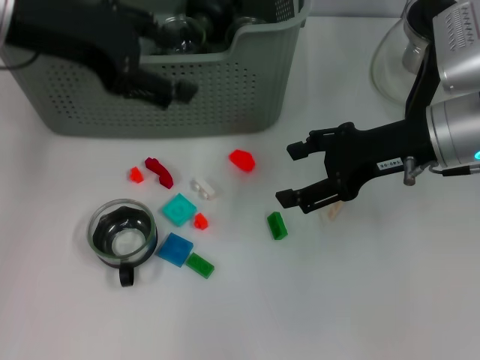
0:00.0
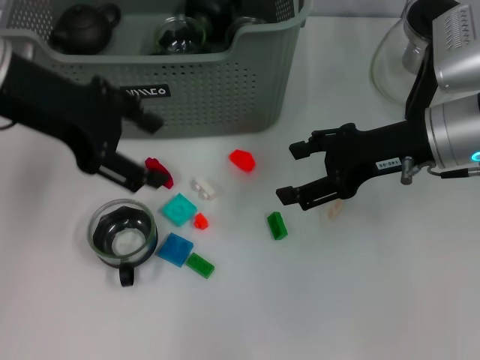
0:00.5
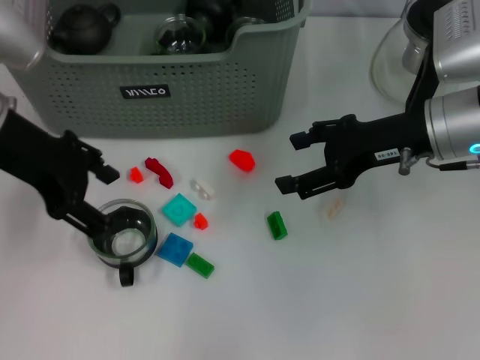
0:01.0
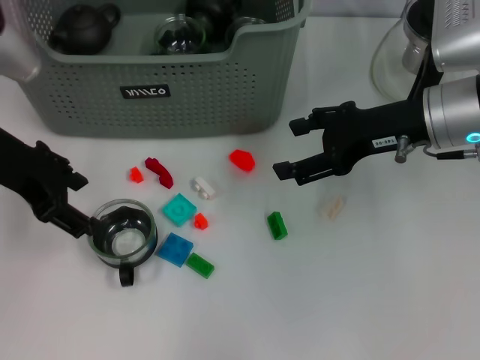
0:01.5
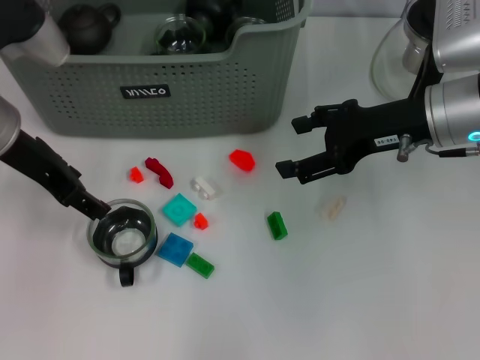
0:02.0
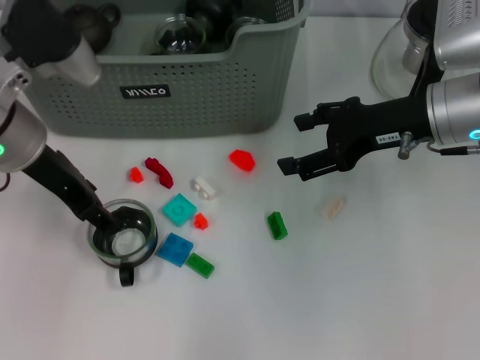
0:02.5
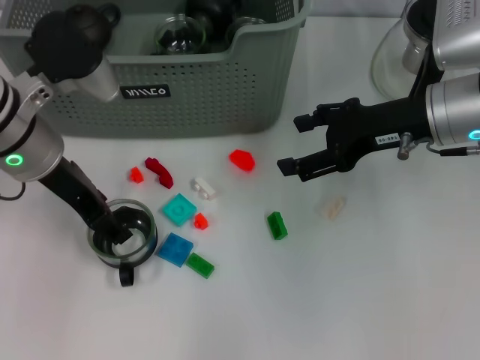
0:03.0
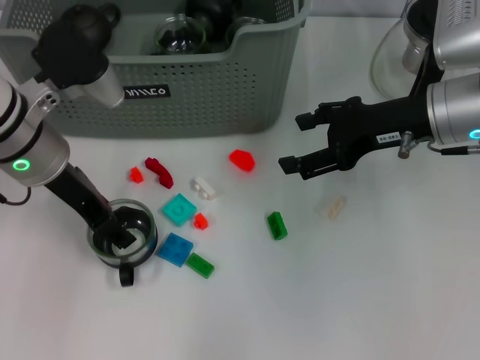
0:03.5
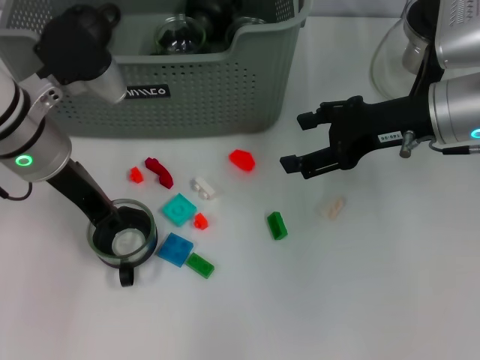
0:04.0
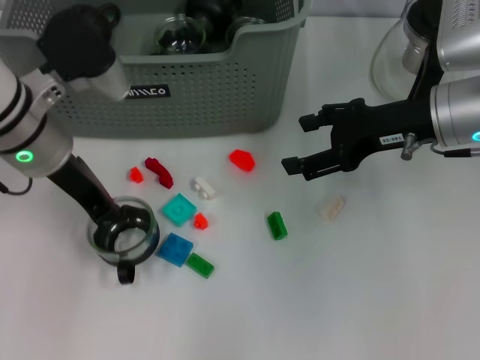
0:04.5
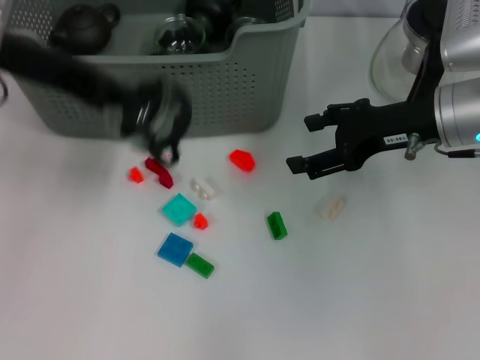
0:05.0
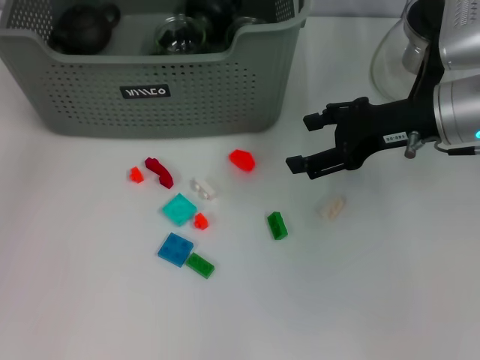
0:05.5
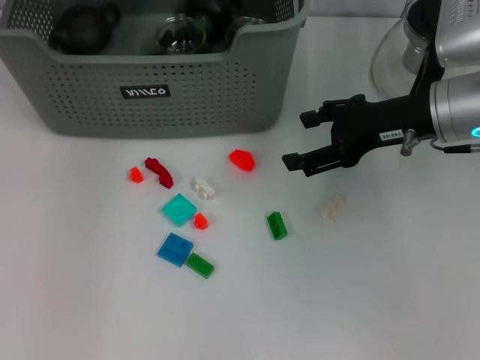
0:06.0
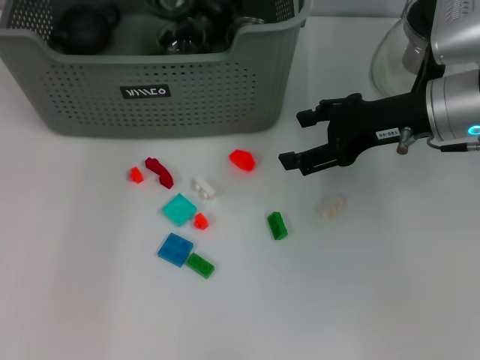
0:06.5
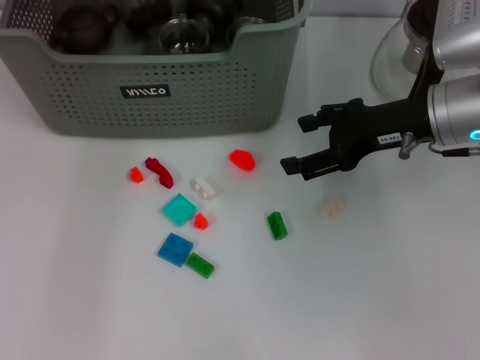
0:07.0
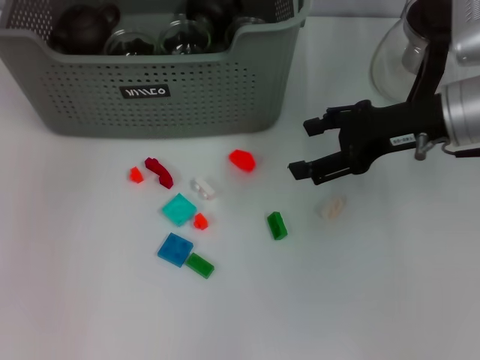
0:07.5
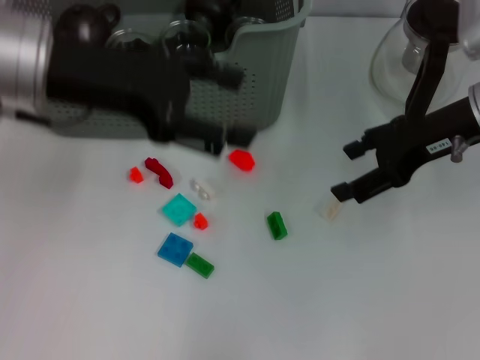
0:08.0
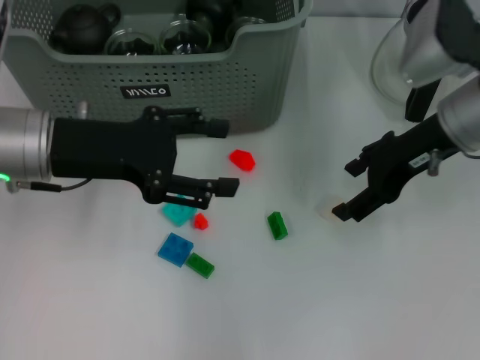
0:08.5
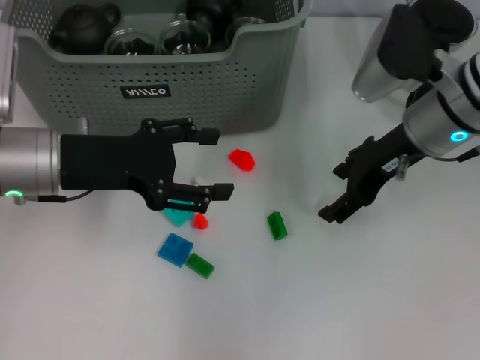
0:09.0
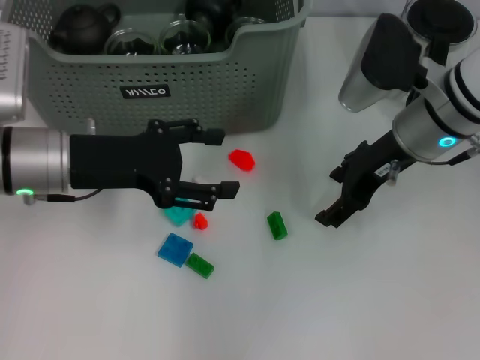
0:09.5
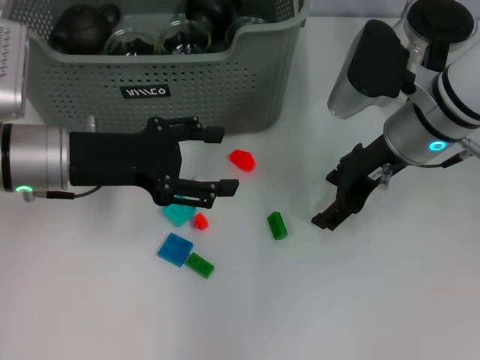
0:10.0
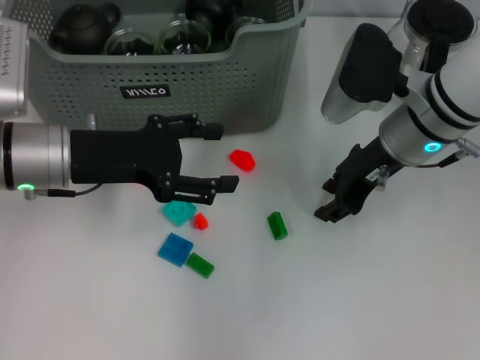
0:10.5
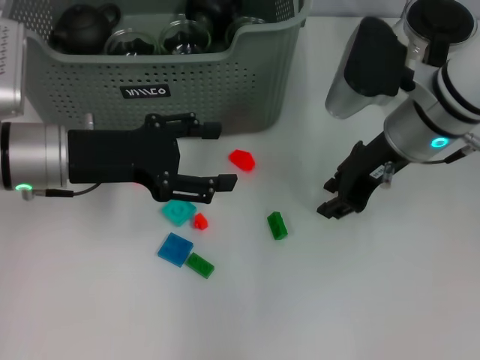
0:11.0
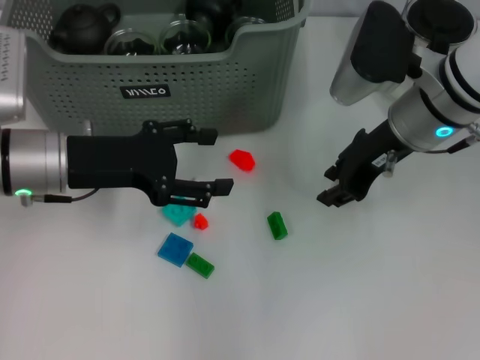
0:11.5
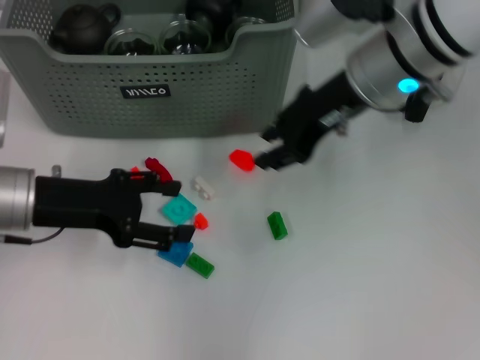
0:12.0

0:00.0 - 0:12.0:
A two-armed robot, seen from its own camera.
Task of the whole recording: pick up the teacup on the table and place it into the storage bin, pick up the block on the table and place it into the storage bin.
Step, 0:00.0 - 0:04.0: Grasp the cup with left gripper.
Step, 0:04.5 - 0:07.0: Place the cup in the storage box with left gripper.
Step, 0:07.5 - 0:10.5: Grasp the white block with right gripper.
0:00.0 - 0:02.0: The left gripper is displaced downward by approximately 10 cm.
0:02.0 - 0:04.0: The left gripper closes.
0:04.0 - 0:06.0: The left gripper travels forward and upward by approximately 20 cm, and closes up.
0:06.0 - 0:08.0: The left gripper shifts approximately 15 cm backward, and opens.
0:08.0 - 0:10.0: The right gripper travels to the left by about 5 cm, while the left gripper travels downward by some 10 cm.
0:10.0 - 0:12.0: The right gripper moves upward, approximately 5 cm, and closes up.

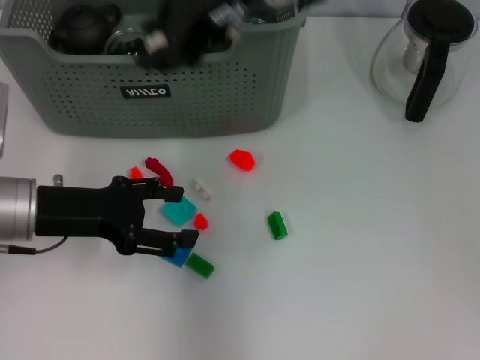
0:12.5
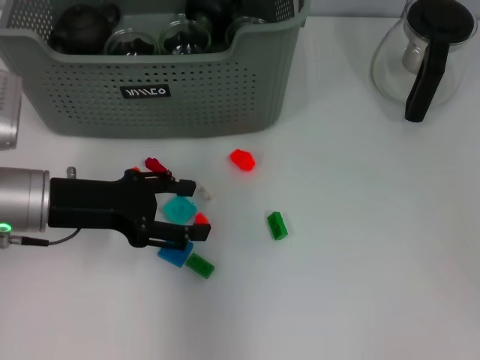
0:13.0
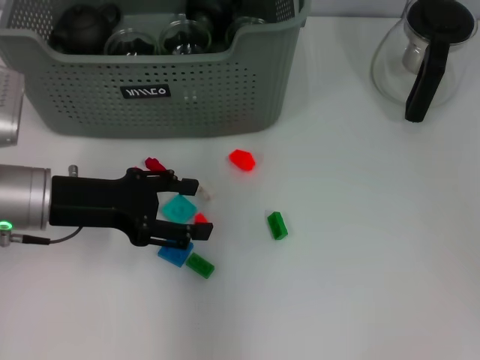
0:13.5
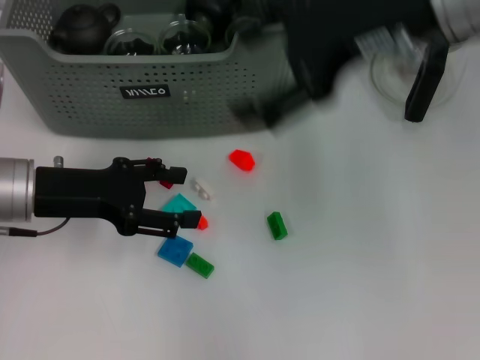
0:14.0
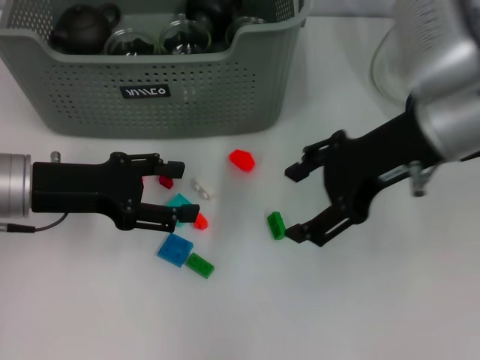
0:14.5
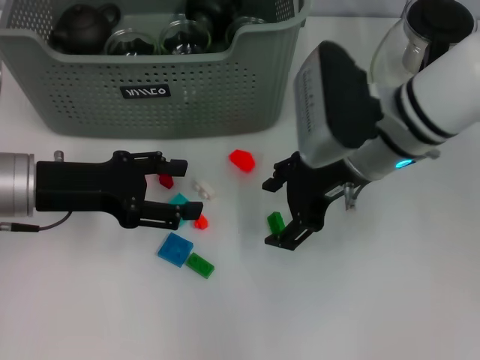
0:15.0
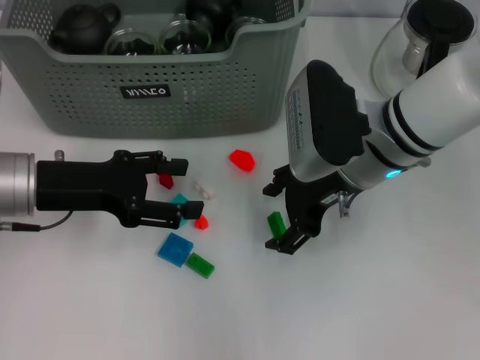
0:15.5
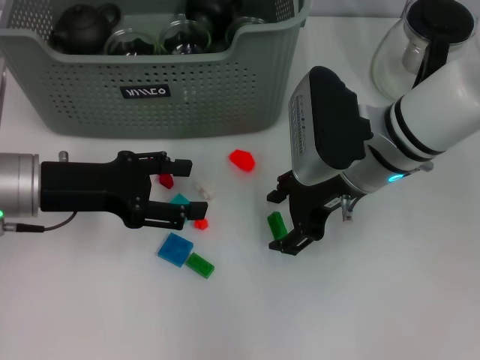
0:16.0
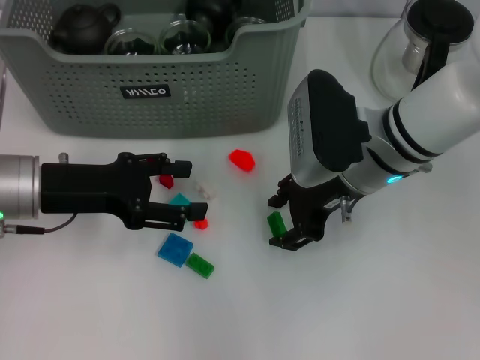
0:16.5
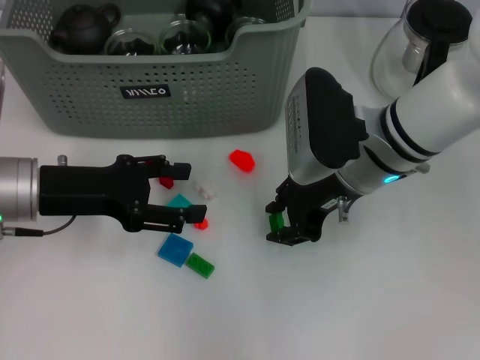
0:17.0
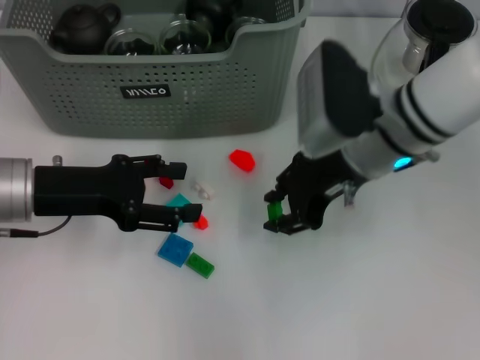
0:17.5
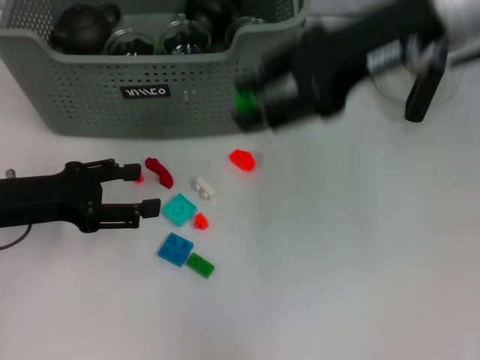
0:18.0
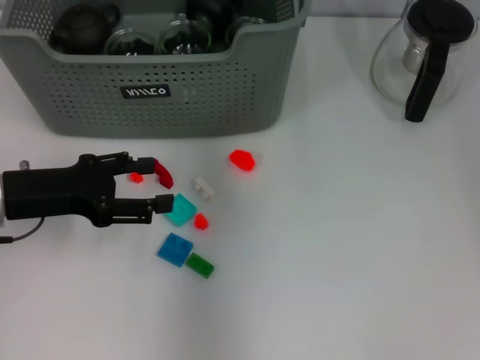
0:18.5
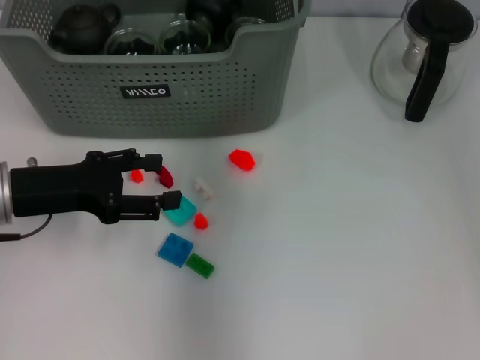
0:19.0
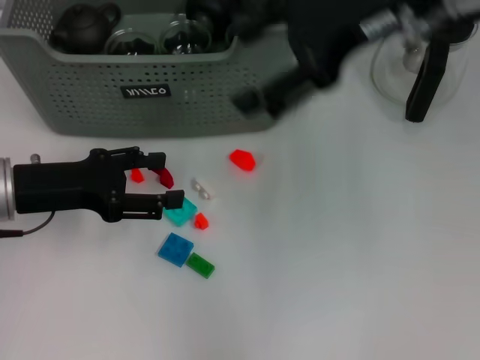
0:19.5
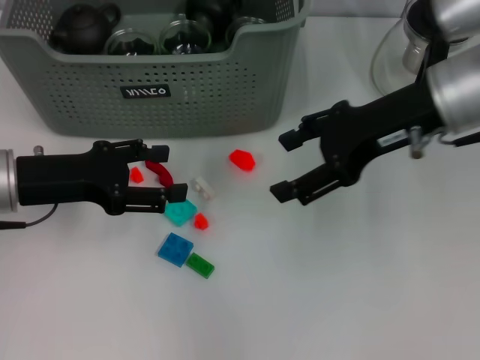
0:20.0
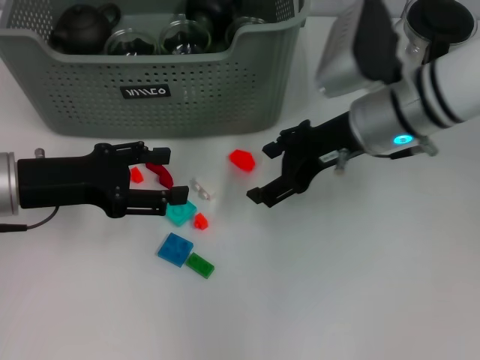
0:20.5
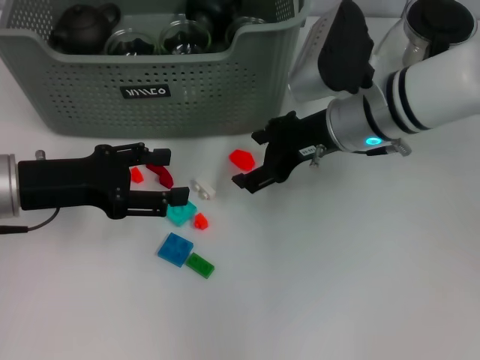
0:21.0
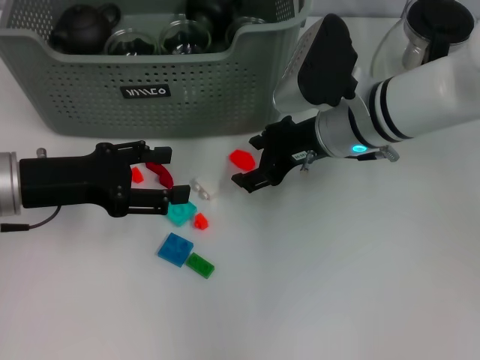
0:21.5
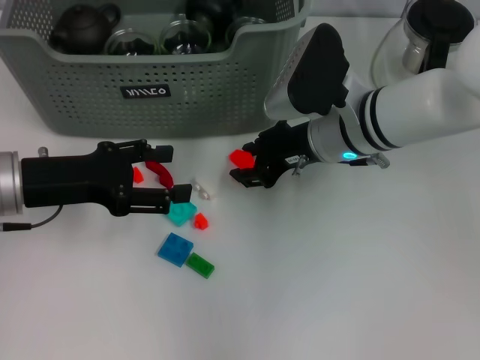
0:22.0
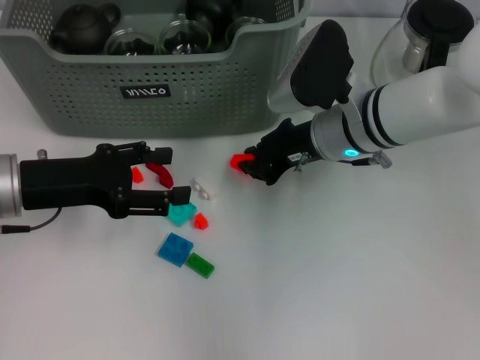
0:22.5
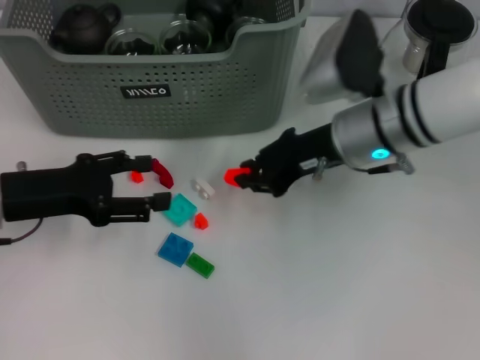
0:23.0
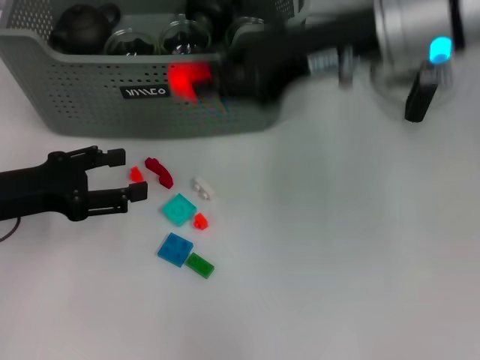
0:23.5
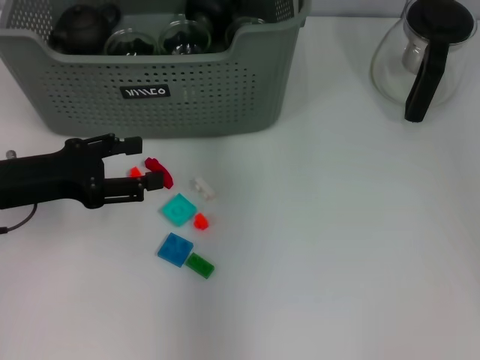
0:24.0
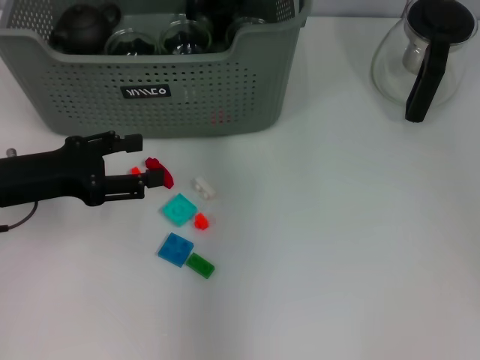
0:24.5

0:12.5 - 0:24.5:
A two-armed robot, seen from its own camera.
Task of the whole recording: pick up the teacup on the table and place it into the storage bin, pick up the block on the table and place it into the storage bin.
Step, 0:14.0 - 0:17.0: Grasp the green block with right gripper.
Step, 0:17.5 - 0:19.0: Place the green block in the storage box with right gripper.
Step, 0:19.5 - 0:22.5: Grasp the orange block with right gripper.
Step, 0:23.0 - 0:24.5: Place the orange block in the storage box with right gripper.
0:12.5 - 0:14.5: The right gripper heads to the right, downward and backward, covering roughly 15 cm, and opens up.
0:14.5 - 0:16.5: The right gripper shifts some 10 cm downward.
0:16.5 - 0:18.5: The right gripper travels upward and forward by roughly 25 cm.
0:18.5 - 0:20.5: The right gripper moves downward, approximately 20 cm, and opens its fingers.
0:20.5 - 0:22.5: The right gripper changes place by approximately 5 cm, and closes its fingers.
0:22.5 - 0:24.5: The right gripper goes about 15 cm upward and forward.

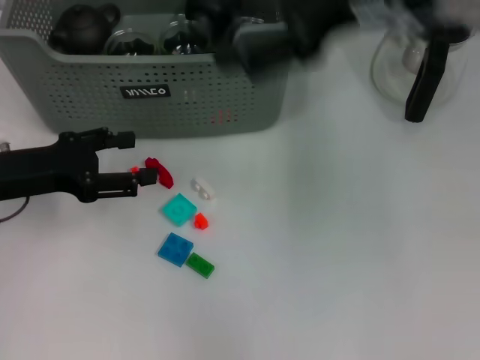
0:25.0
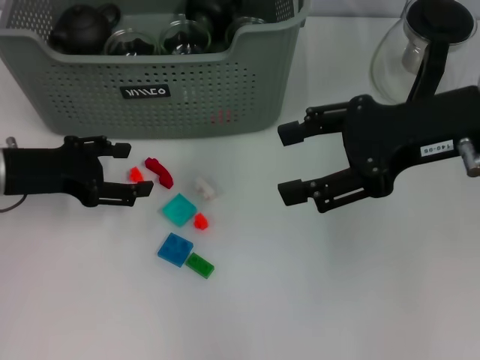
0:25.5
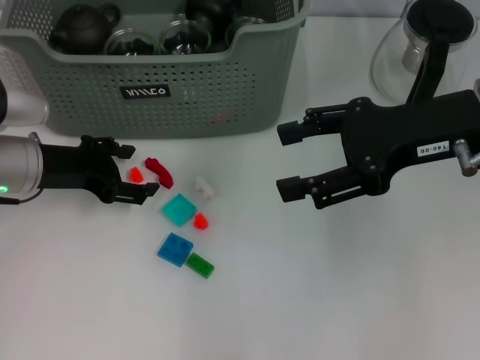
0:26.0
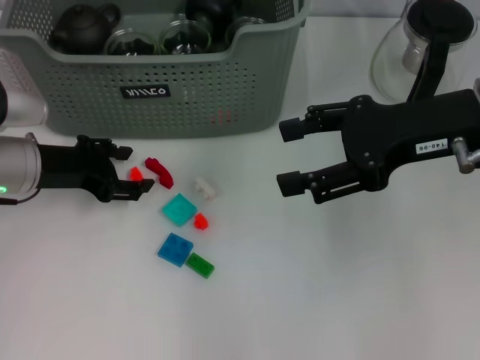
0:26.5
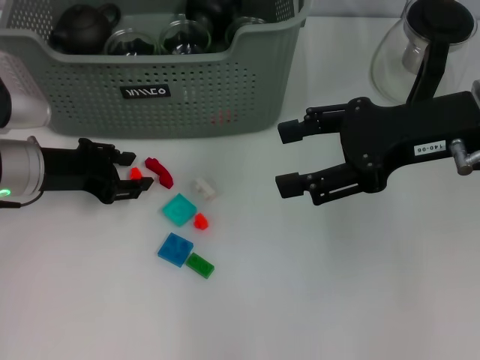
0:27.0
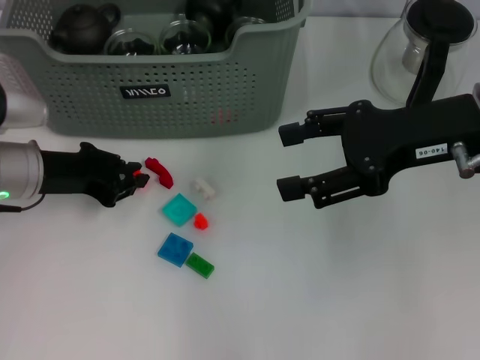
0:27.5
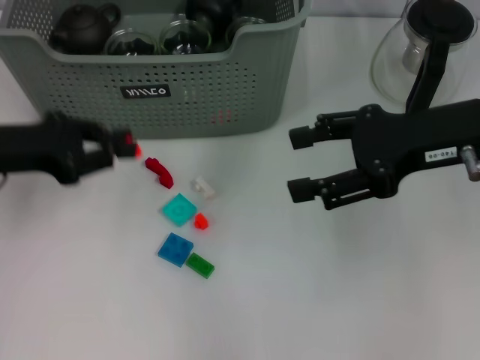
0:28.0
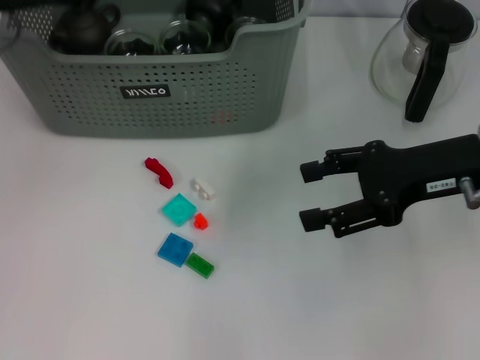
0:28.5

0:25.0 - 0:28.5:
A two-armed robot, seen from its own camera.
Task of the whole recording: pick up the teacup on the table and place it into the storage bin, pick up the block on the table and place it into the storage bin.
Step, 0:25.0 - 0:27.0: Grasp the orange block with left gripper.
0:25.0 - 0:27.0: The left gripper ends up some 5 cm from where it was, while the right gripper heads downward and to the right, covering roughly 10 cm.
0:27.0 - 0:28.5: The left gripper moves upward, roughly 15 cm, and closes its fingers.
